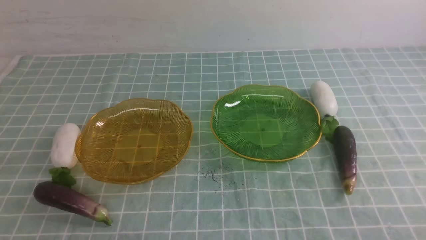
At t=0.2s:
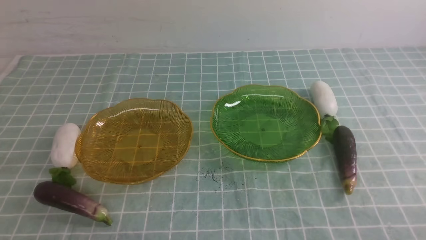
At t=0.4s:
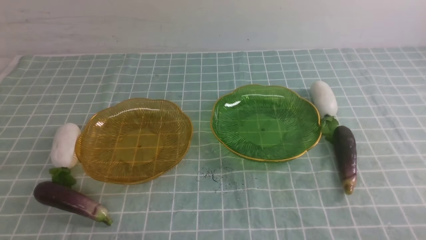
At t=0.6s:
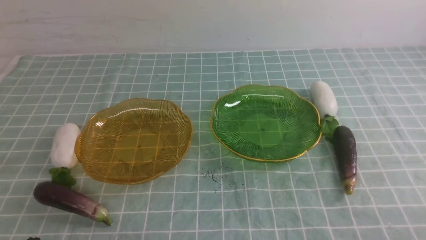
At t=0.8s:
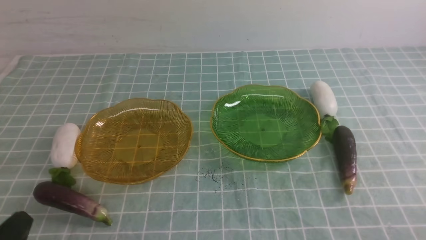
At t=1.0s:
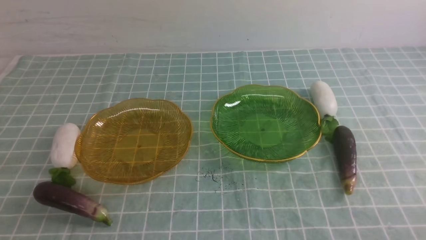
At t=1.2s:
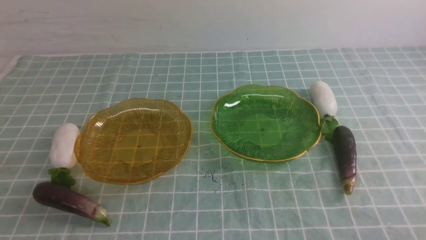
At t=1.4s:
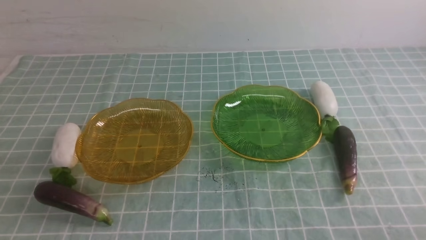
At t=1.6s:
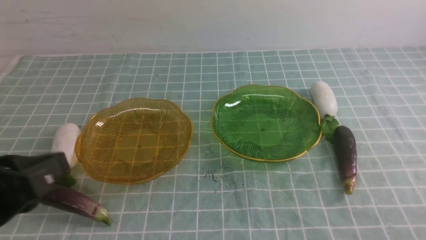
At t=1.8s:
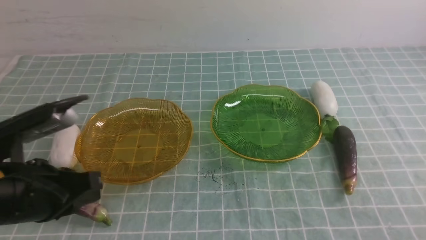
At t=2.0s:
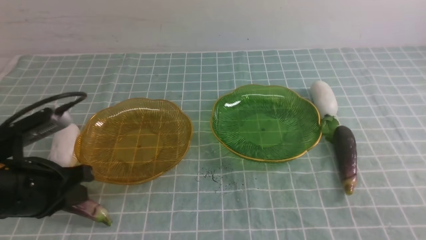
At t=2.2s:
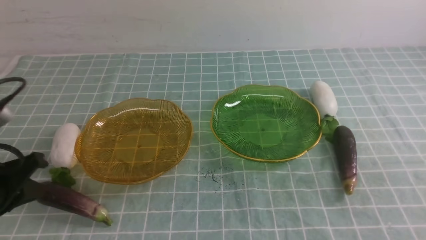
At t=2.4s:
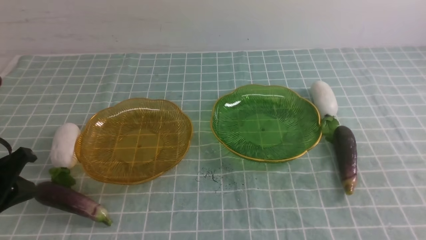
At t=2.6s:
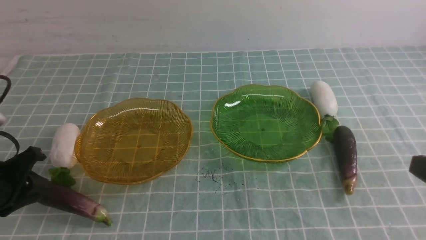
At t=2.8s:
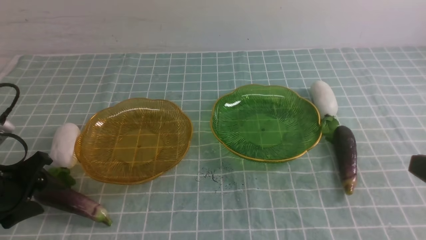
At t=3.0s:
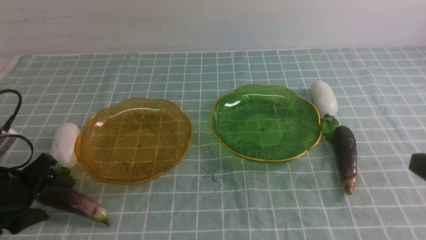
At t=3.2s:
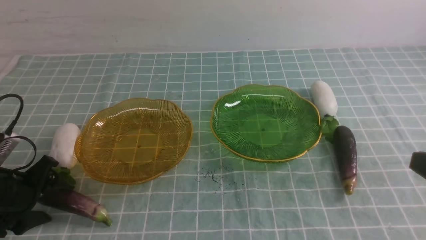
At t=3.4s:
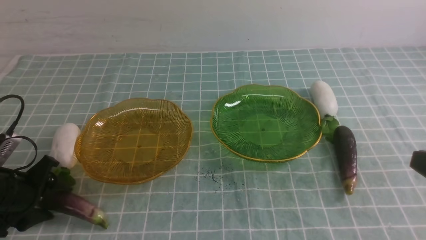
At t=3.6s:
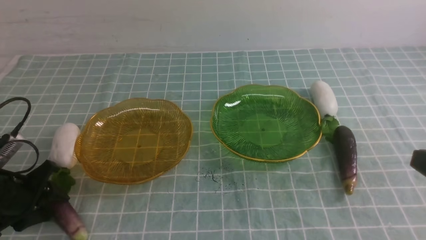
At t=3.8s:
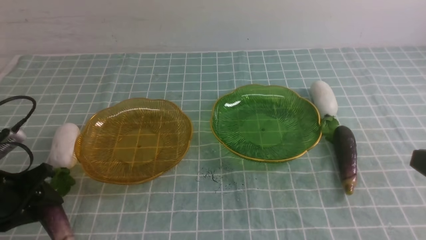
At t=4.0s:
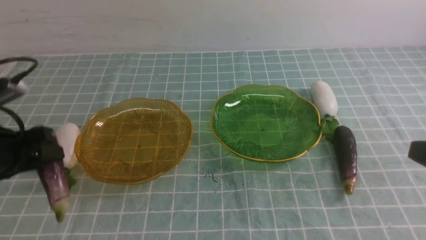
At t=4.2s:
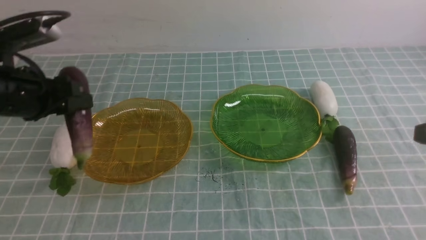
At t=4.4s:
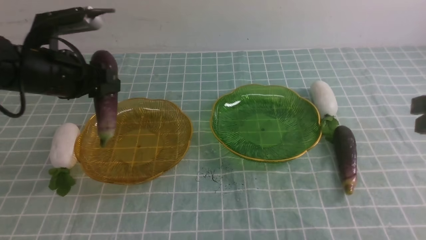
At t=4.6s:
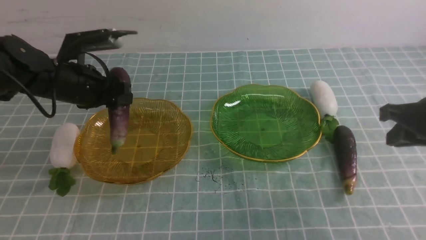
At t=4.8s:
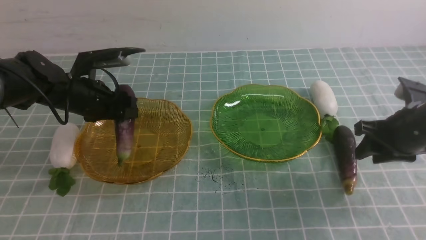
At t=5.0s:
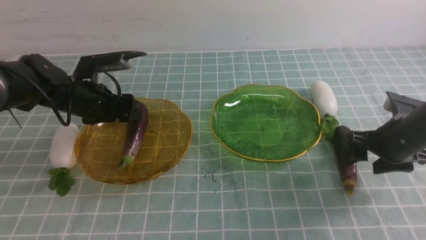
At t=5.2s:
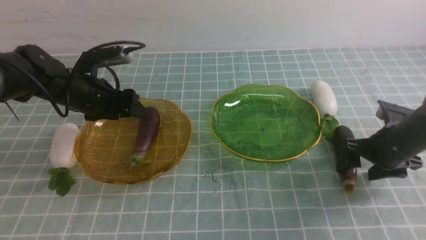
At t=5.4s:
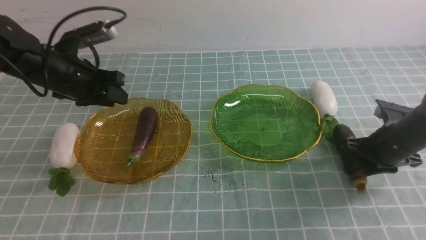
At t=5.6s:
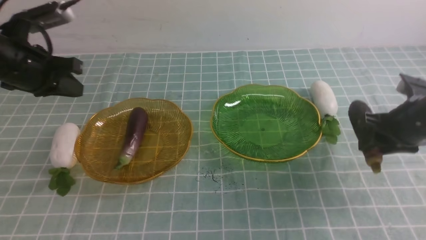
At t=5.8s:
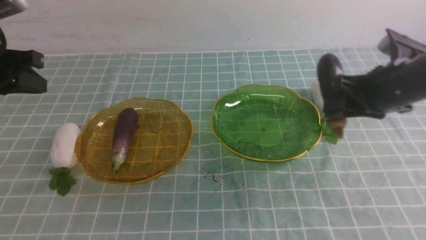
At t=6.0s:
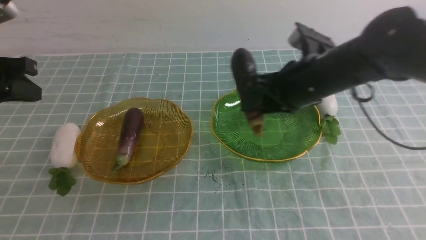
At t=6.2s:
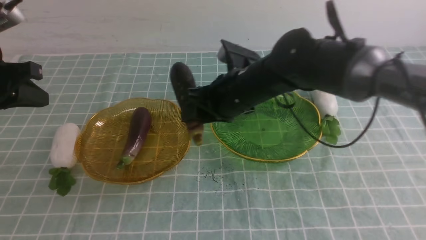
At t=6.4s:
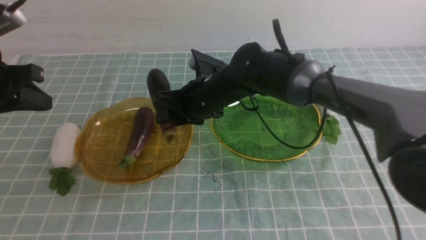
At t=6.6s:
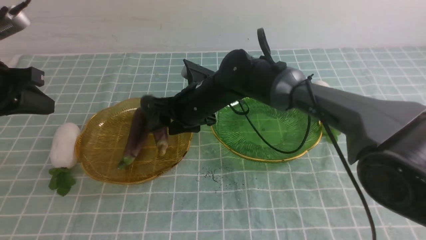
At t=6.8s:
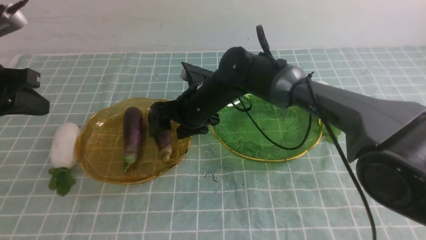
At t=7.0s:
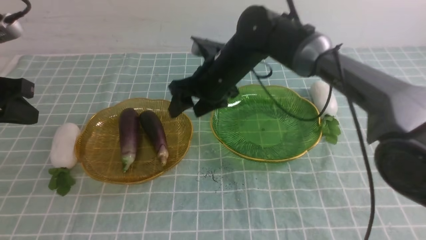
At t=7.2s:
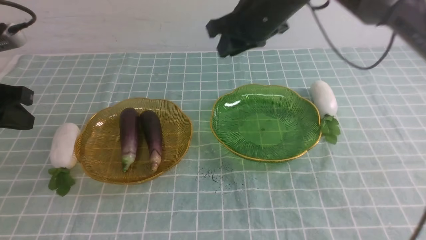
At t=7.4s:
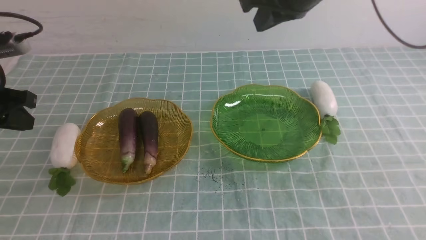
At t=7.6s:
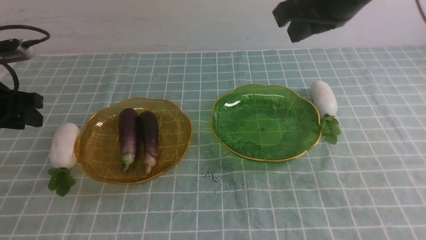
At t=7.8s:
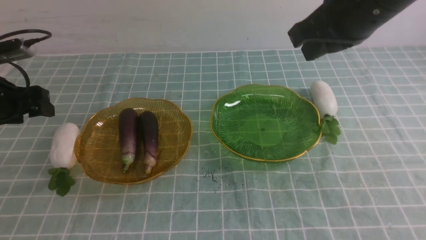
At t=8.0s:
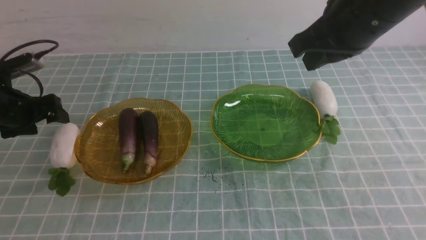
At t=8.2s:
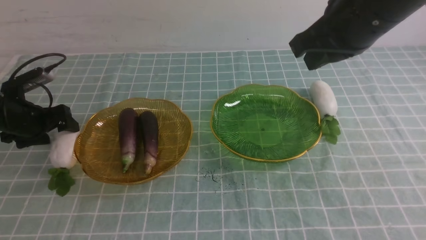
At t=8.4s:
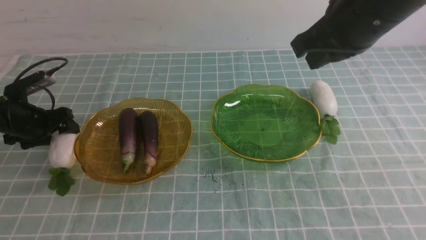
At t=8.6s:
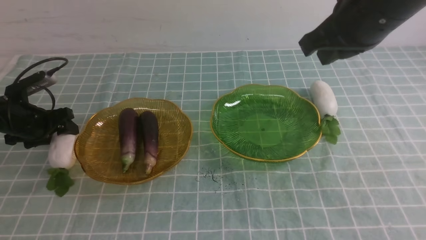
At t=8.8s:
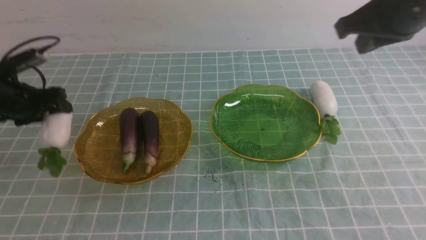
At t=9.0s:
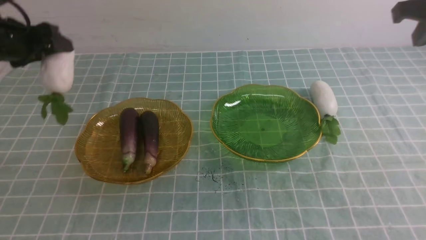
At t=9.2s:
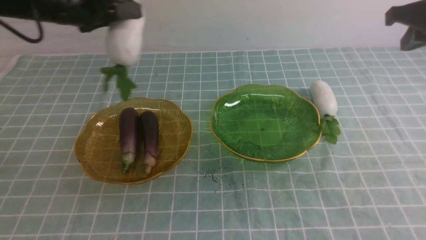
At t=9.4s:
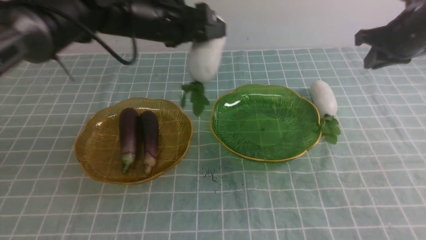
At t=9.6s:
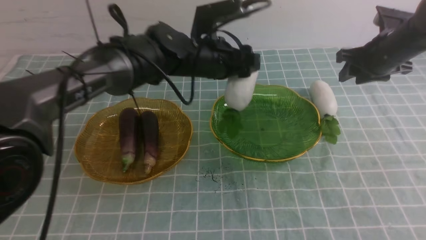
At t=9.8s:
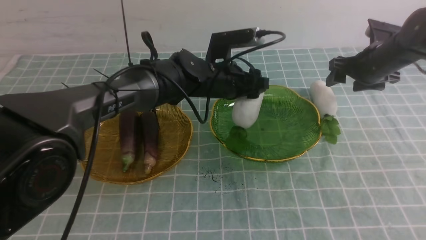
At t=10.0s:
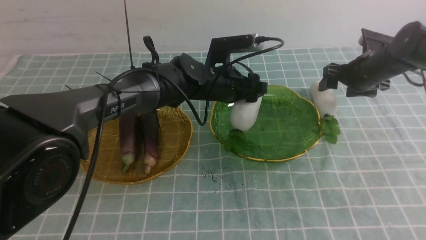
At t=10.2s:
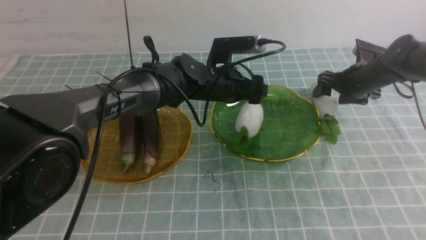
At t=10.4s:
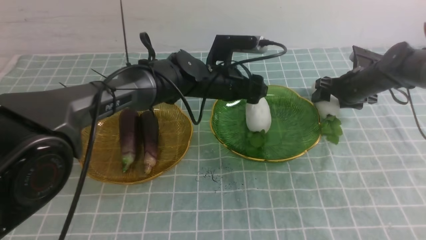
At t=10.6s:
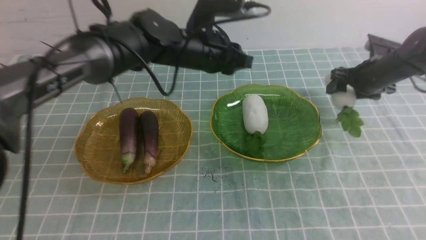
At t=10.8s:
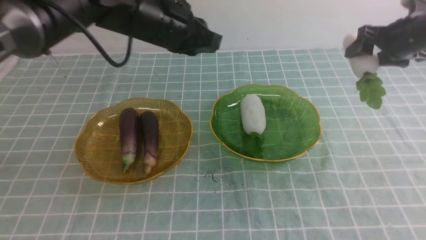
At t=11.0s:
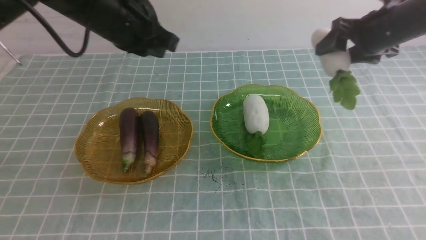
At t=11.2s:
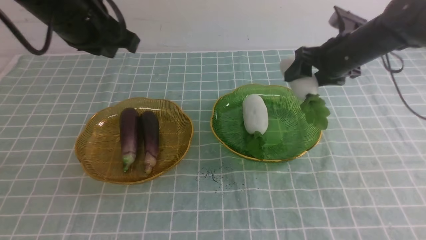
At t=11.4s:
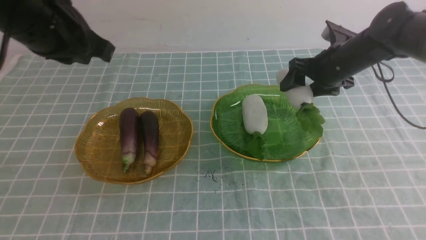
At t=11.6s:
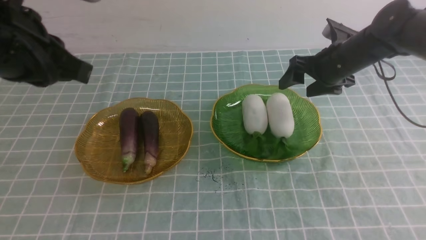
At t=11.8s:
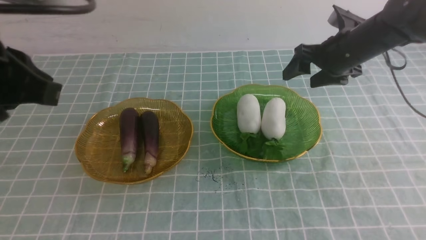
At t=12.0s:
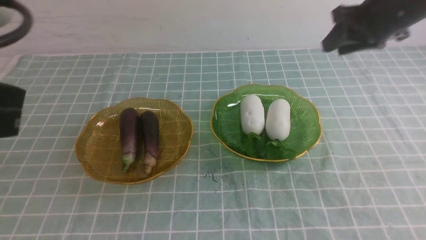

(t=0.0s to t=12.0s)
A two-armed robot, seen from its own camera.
Step, t=0.0s - t=5.2s: use the left arm to grab an eggplant and put it into the left plate.
Step, t=5.4s - t=6.8s: use the right arm to grab an eggplant and put it into the left plate.
Step, t=7.0s - t=10.0s: use the left arm to grab a radish and put it into the right plate.
Step, t=10.2s - t=11.6s: use the right arm to grab a radish and put it into the right plate.
t=0.0s - t=1.6s: The left gripper moves upward and forward, about 15 cm.
t=1.6s - t=3.0s: The left gripper goes about 20 cm downward, forward and to the left, and opens up.
t=3.0s - t=4.4s: The left gripper moves upward, forward and to the right, roughly 15 cm, while the right gripper shifts some 10 cm forward.
t=4.4s - t=6.0s: The left gripper travels to the left by approximately 10 cm, and closes its fingers. The right gripper moves to the left and forward, some 20 cm, and opens.
t=6.0s - t=7.6s: The left gripper travels downward by about 5 cm, and opens its fingers, while the right gripper travels upward by approximately 15 cm, and closes.
t=7.6s - t=9.0s: The right gripper is displaced to the right by approximately 15 cm. The left gripper is displaced forward and to the right by approximately 10 cm, and goes downward and returns, roughly 10 cm each way.
t=9.0s - t=10.4s: The left gripper moves to the right, some 25 cm; the right gripper is displaced downward and forward by approximately 25 cm, and opens.
t=10.4s - t=12.0s: The right gripper goes up and down, about 20 cm each way, reversing 2 times, and closes its fingers. The left gripper travels backward, to the left and upward by about 40 cm, and closes up.

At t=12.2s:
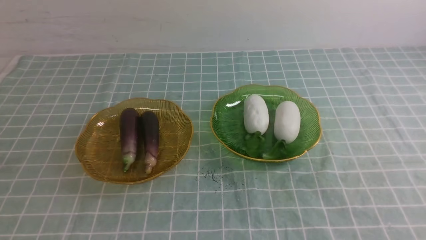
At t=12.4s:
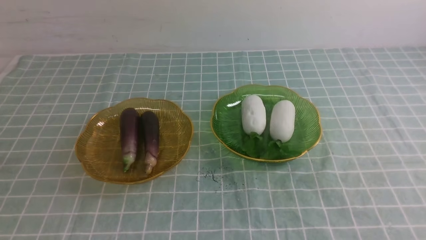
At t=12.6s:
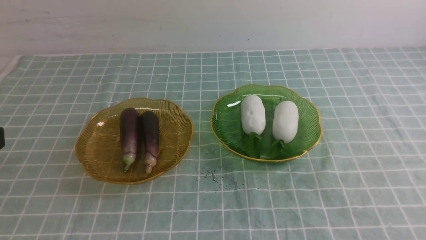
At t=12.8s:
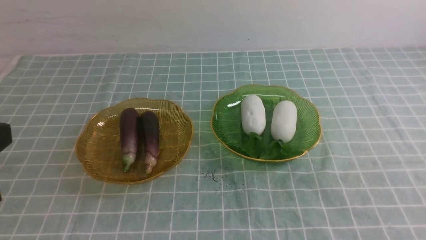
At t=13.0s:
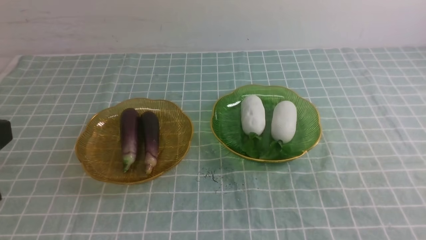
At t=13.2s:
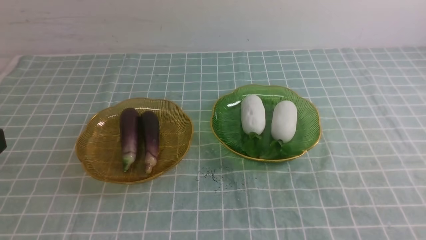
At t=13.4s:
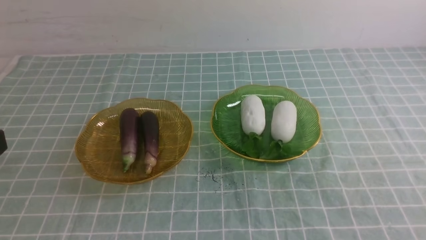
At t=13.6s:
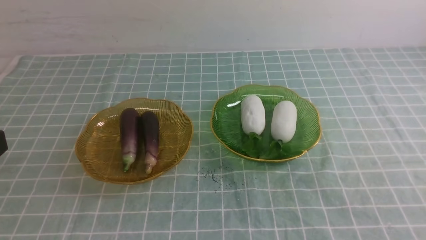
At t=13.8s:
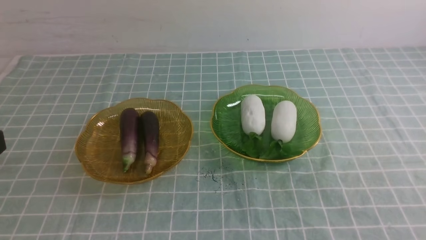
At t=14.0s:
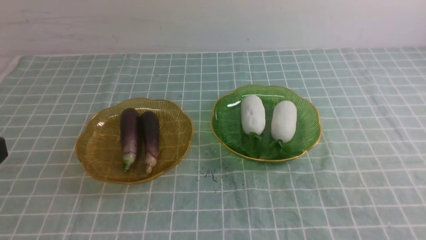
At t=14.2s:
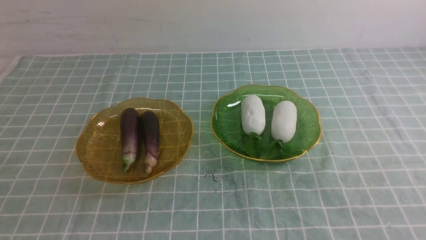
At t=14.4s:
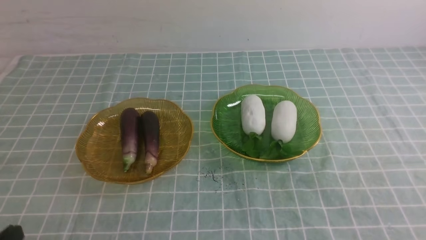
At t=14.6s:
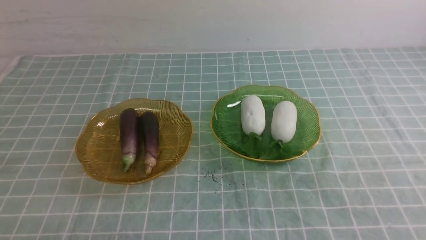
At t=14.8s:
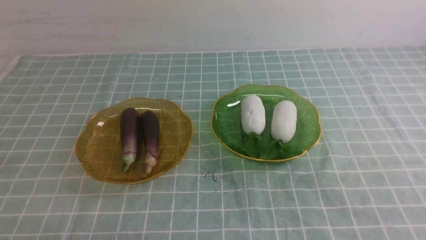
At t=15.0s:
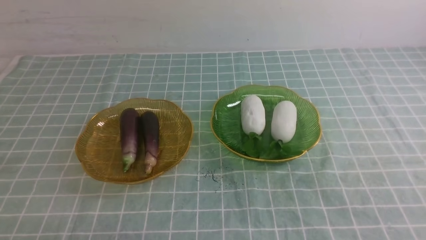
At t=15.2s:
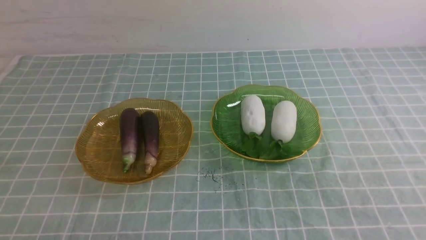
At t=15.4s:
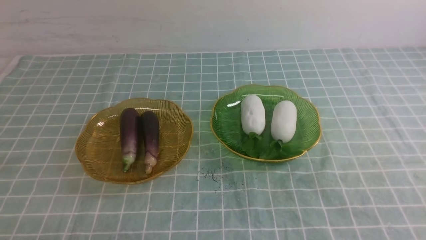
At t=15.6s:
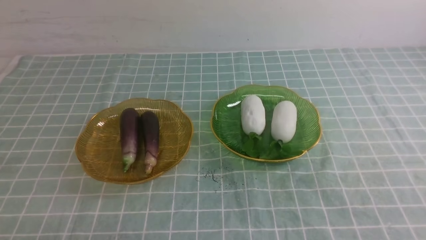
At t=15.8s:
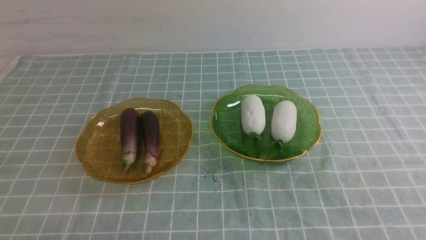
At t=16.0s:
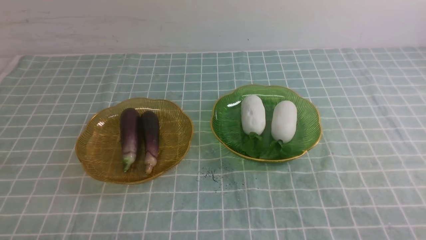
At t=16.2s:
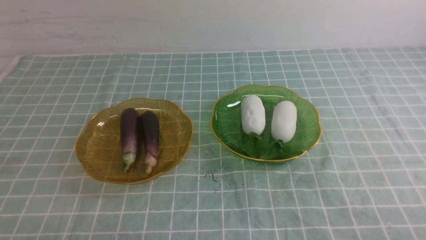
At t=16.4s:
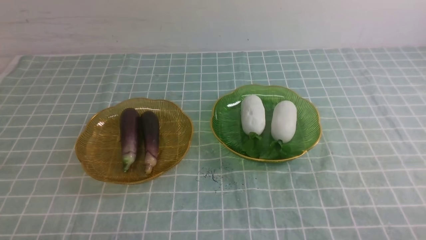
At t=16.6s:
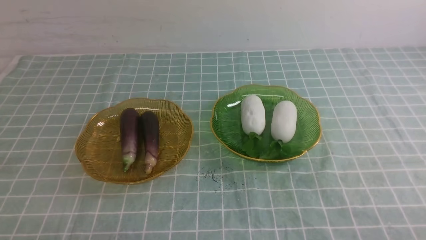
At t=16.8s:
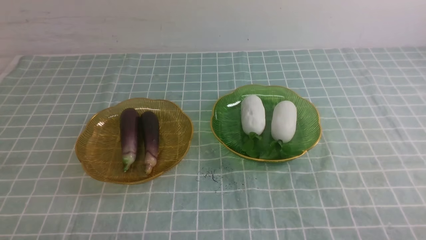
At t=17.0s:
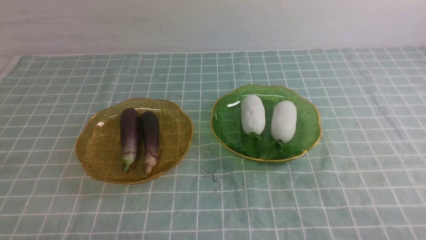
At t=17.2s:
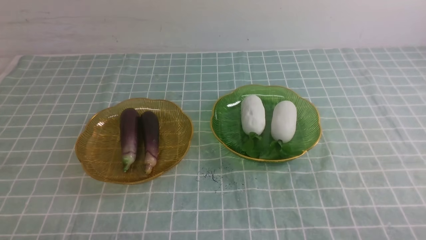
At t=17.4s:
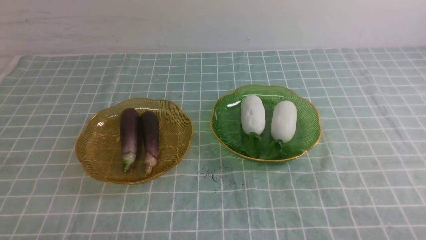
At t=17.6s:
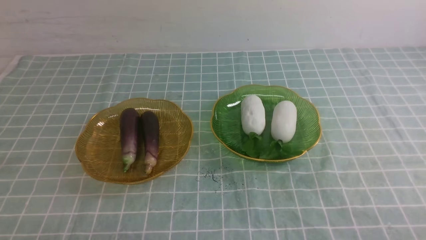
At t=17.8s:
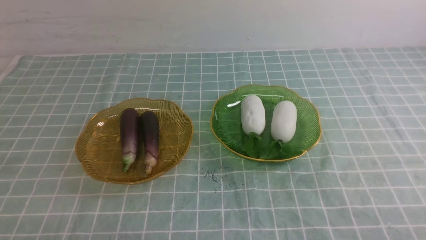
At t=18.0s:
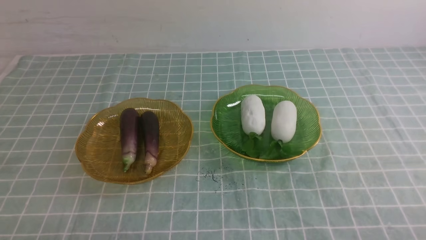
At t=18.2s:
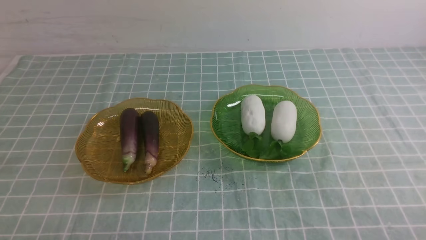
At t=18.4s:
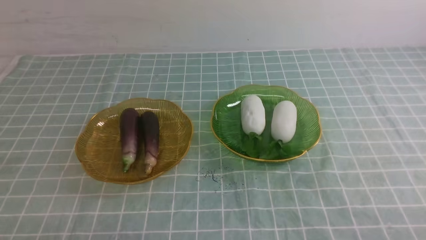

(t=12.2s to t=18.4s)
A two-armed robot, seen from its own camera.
t=12.2s - t=13.8s: The left gripper ends up roughly 5 cm from where it was, while the right gripper heads backward and downward, covering roughly 30 cm.
t=16.8s - t=18.4s: Both grippers stay about where they are.
